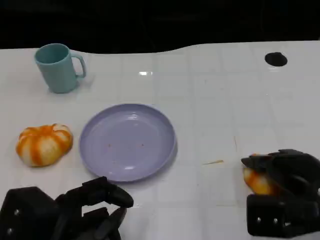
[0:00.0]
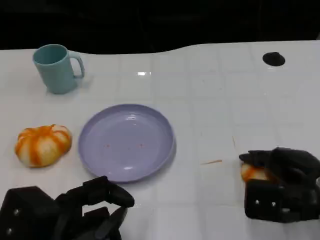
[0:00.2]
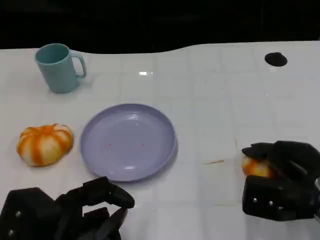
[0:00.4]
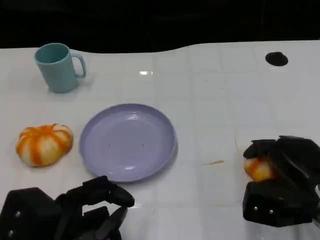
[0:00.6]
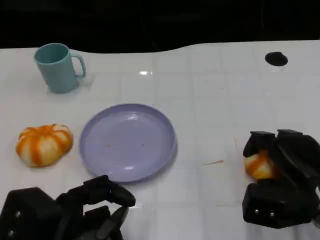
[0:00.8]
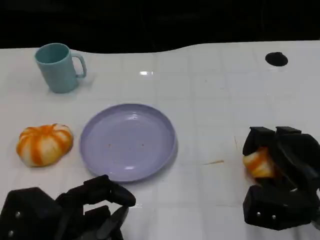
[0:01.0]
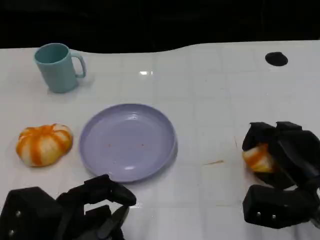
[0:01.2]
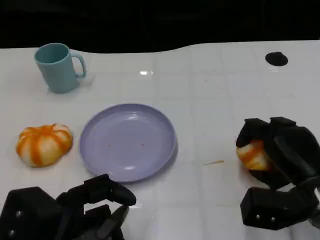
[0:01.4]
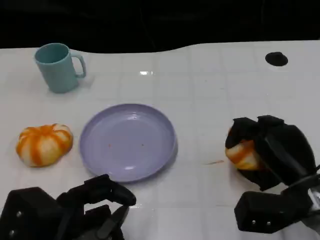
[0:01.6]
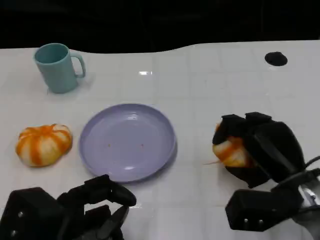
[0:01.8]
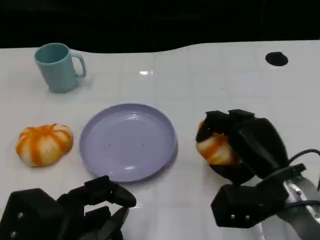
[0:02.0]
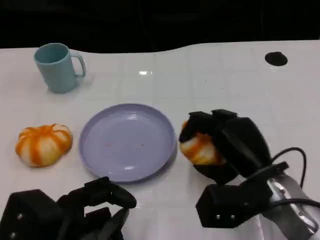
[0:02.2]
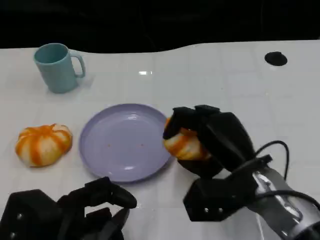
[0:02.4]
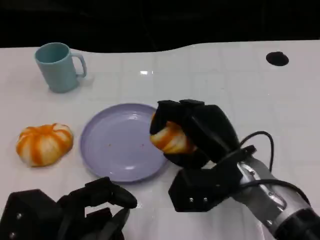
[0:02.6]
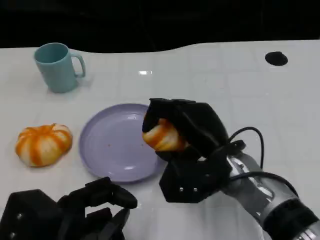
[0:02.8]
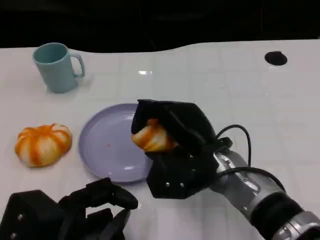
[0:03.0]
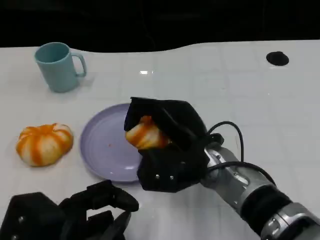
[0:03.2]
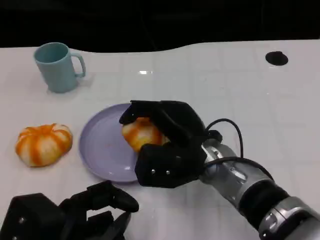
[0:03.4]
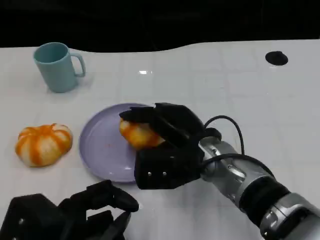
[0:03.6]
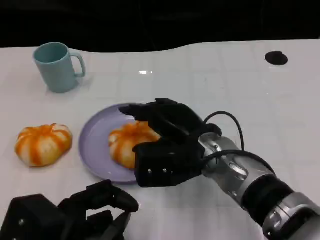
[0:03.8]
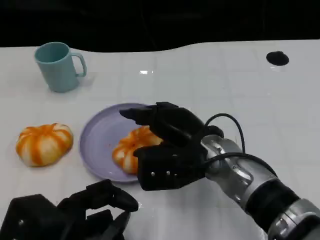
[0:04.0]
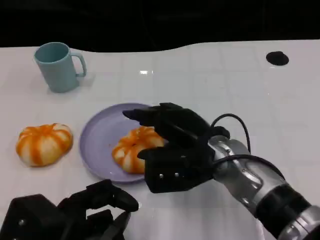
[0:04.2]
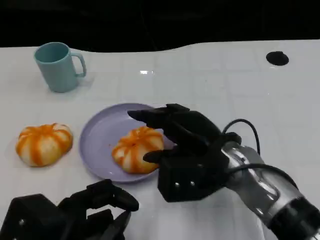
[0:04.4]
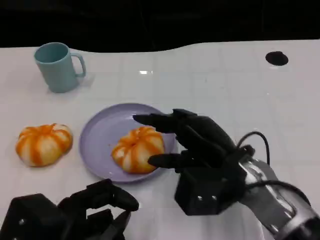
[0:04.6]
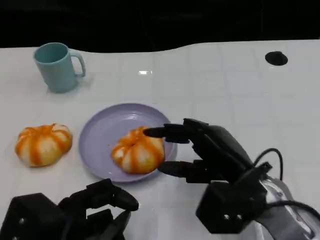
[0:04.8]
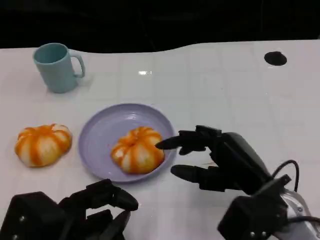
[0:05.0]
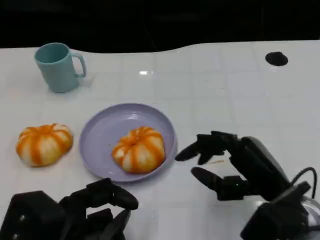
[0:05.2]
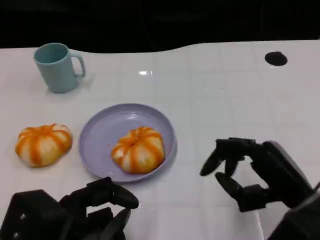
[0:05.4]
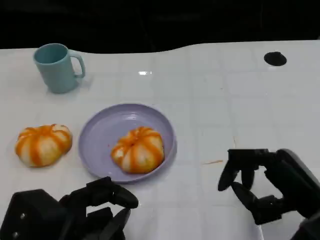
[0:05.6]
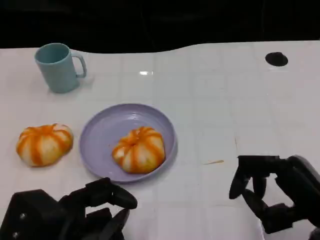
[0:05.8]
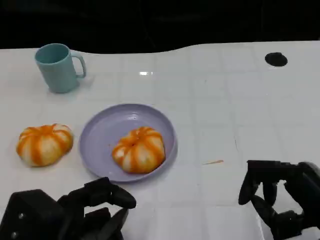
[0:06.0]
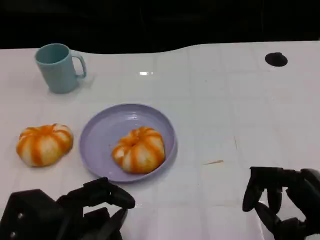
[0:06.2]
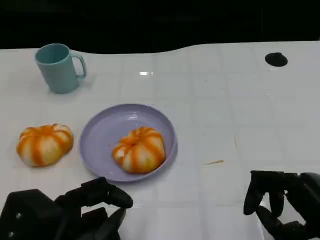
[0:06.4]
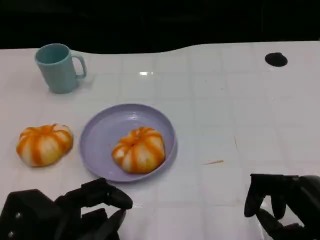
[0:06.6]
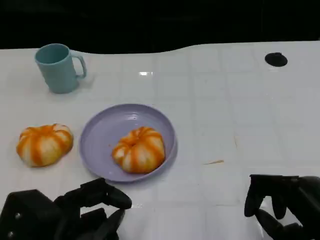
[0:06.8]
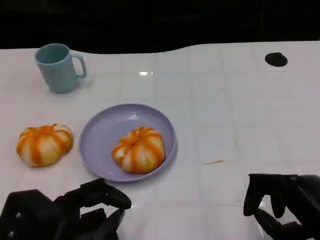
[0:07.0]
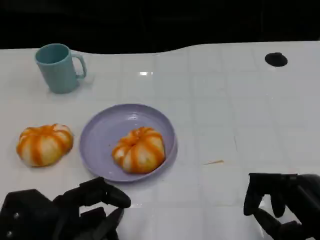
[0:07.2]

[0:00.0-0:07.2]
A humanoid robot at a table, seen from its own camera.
Task of the whole recording: Grasp the bread from the table and place it into the plate.
0:01.4 to 0:02.8: The right hand is displaced to the left by roughly 15 cm.
0:04.4 to 0:05.8: The right hand is displaced to the right and backward by about 15 cm.
0:05.8 to 0:07.2: The hands move only a little.

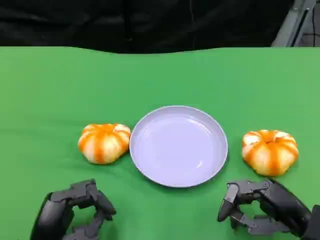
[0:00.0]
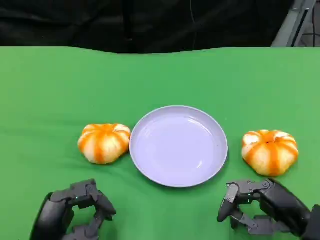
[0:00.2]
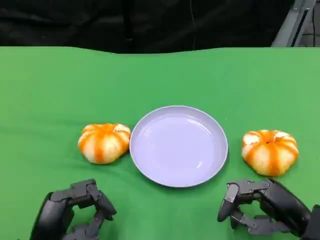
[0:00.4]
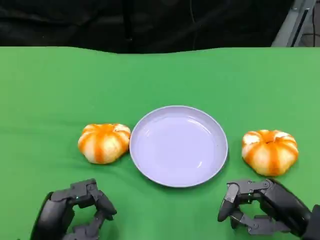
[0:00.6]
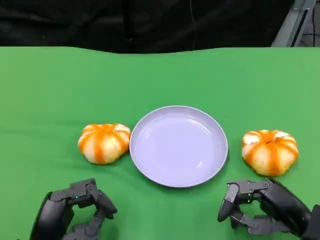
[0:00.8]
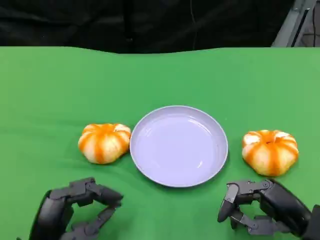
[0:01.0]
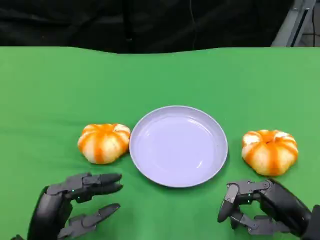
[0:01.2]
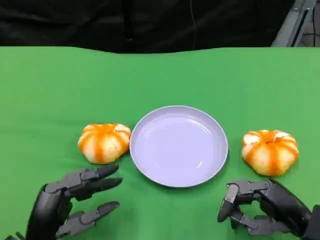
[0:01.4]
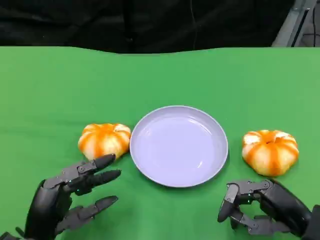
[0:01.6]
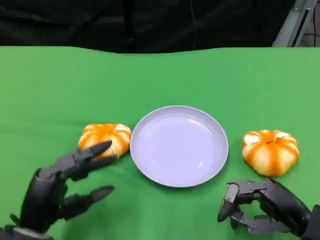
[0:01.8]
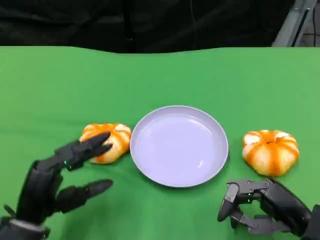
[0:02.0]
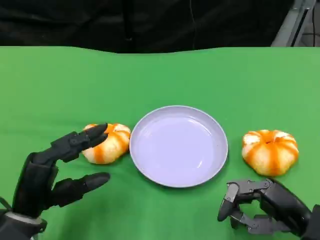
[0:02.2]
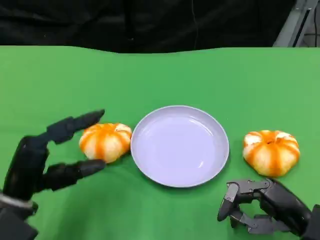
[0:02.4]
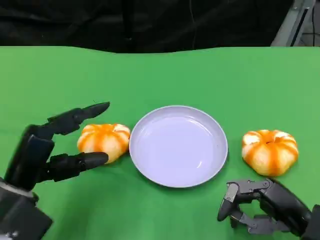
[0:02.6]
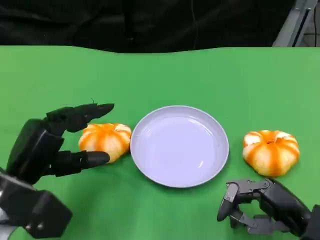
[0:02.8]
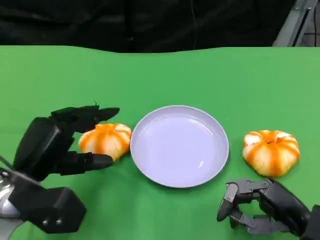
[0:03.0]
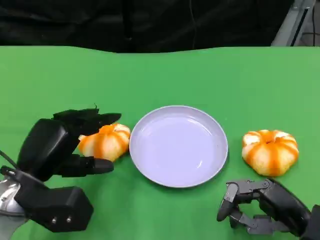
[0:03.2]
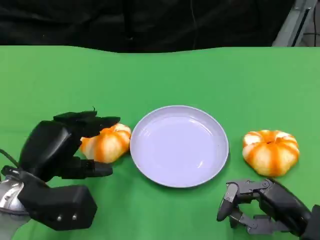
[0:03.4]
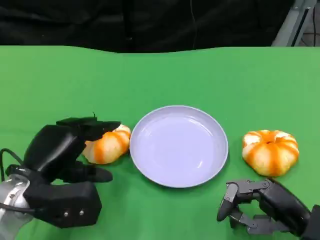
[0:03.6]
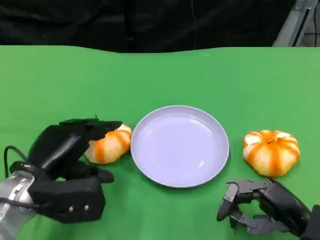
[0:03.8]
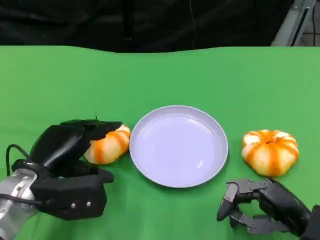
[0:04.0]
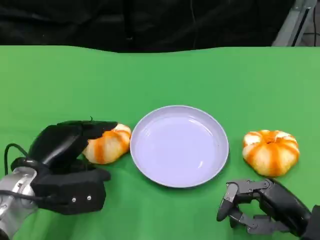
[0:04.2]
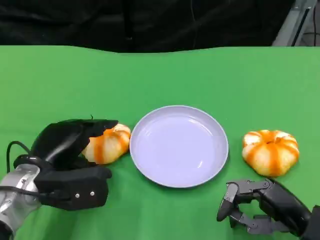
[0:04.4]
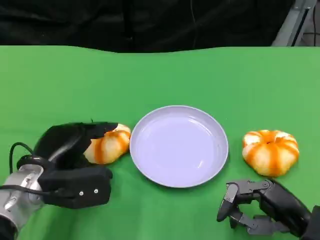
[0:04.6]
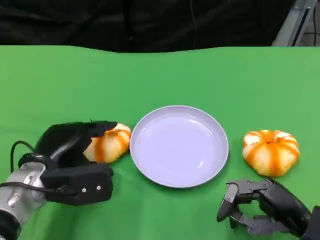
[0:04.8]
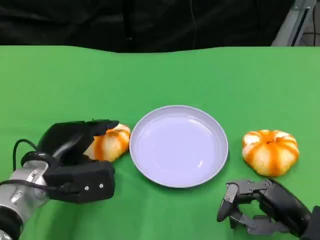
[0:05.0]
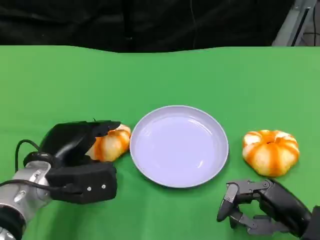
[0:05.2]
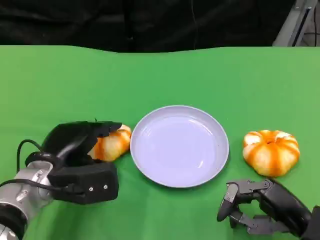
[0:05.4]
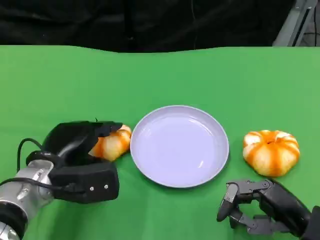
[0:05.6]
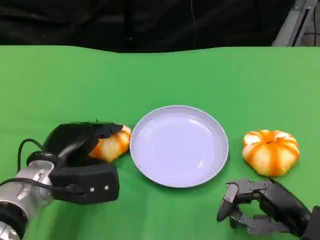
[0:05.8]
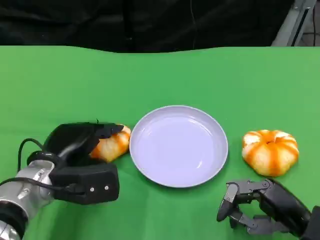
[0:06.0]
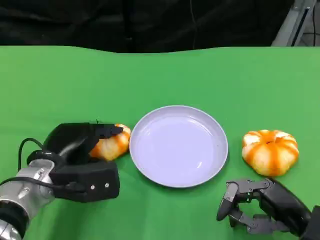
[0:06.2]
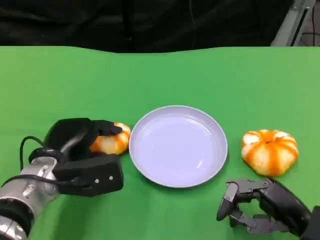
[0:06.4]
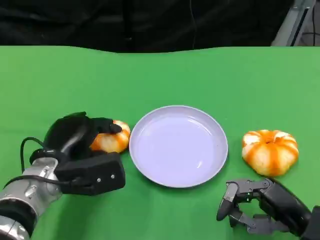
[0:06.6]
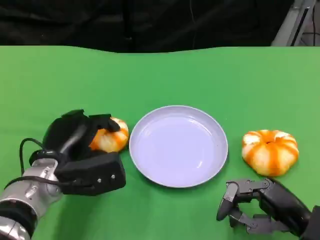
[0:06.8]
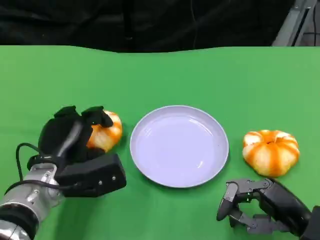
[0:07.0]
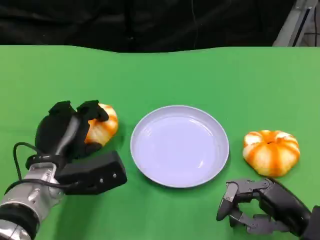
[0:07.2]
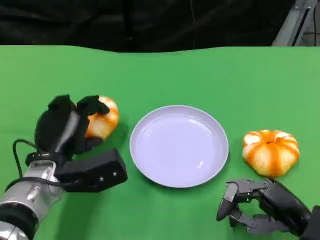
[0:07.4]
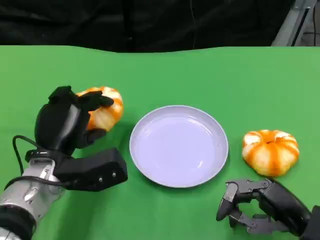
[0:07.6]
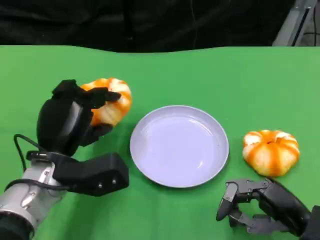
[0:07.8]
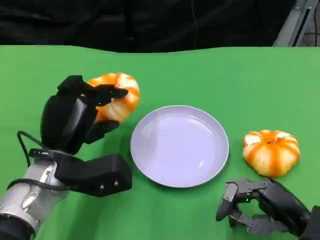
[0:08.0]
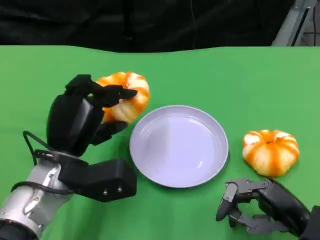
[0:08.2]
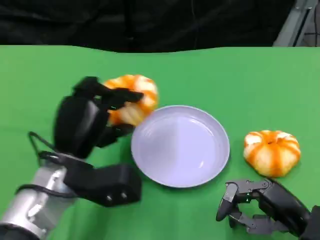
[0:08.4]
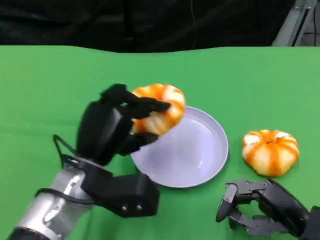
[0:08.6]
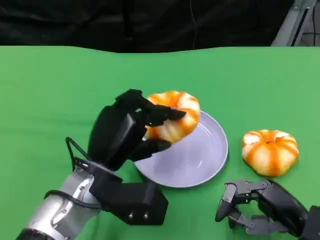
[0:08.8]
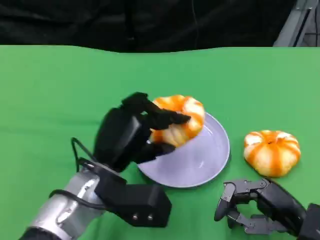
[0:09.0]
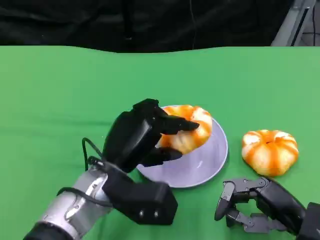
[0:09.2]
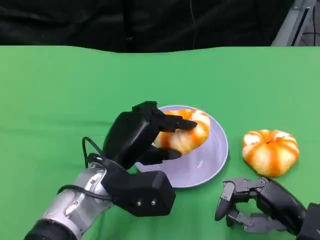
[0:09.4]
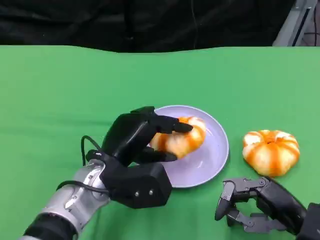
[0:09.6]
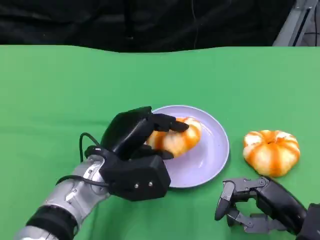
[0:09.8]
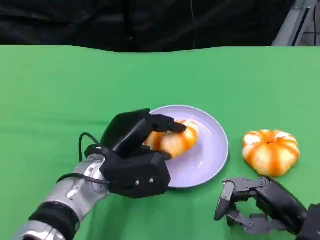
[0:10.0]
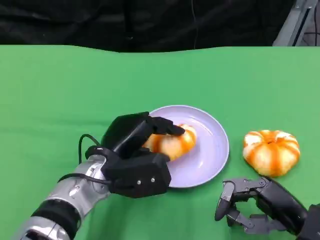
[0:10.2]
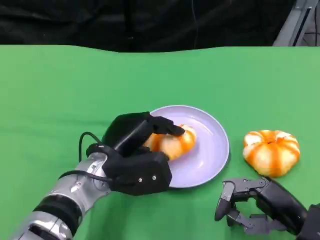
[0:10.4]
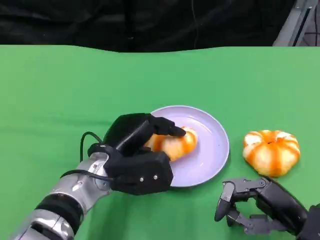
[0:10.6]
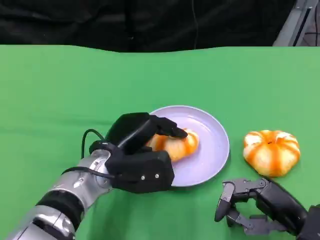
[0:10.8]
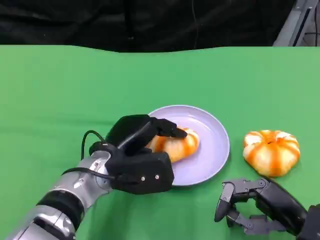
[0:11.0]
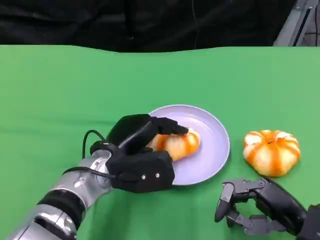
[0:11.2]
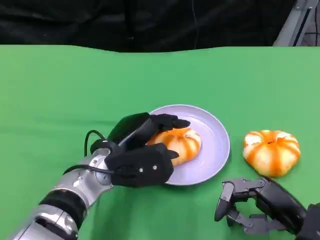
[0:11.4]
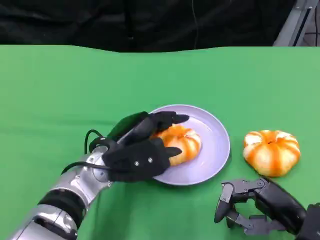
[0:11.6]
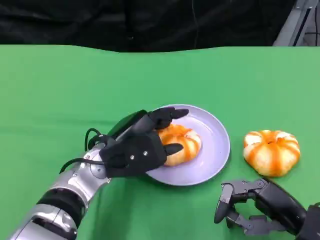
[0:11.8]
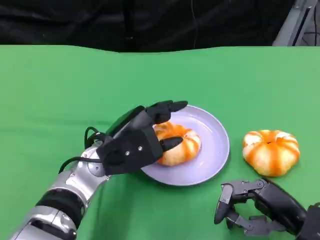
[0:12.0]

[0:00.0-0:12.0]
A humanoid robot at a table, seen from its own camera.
Task of the whole recording: Grasp the bread from the table and place it into the plate.
0:00.0 to 0:01.6: The hands stay close to where they were, moving slightly.
0:01.6 to 0:03.0: The left hand heads forward and upward, covering some 10 cm.
0:04.4 to 0:06.0: The hands stay close to where they were, moving slightly.
0:07.6 to 0:09.0: The left hand is displaced to the right by some 5 cm.
0:10.4 to 0:12.0: The hands move only a little.

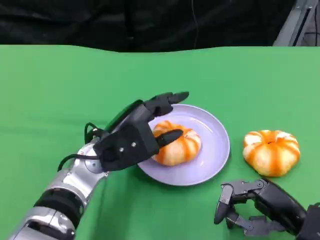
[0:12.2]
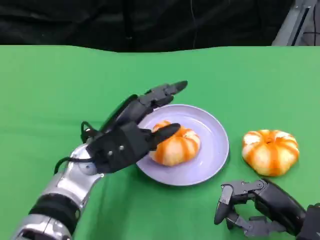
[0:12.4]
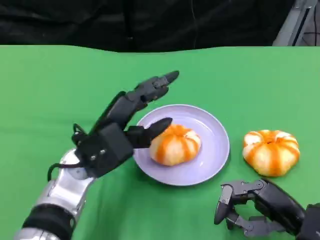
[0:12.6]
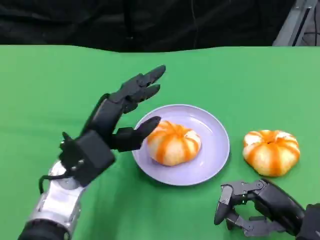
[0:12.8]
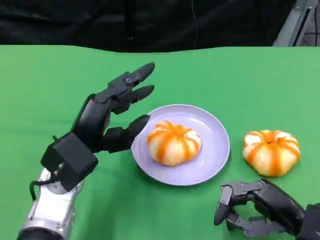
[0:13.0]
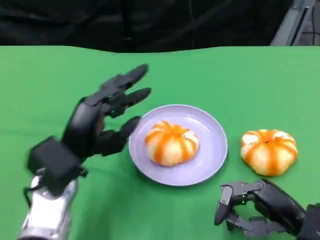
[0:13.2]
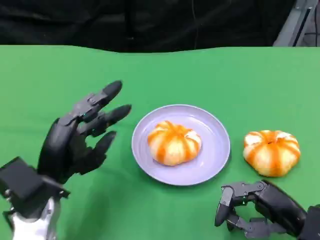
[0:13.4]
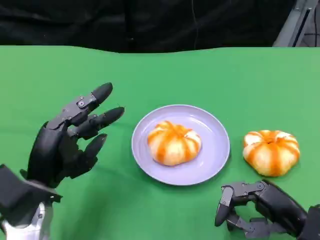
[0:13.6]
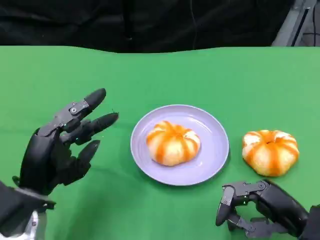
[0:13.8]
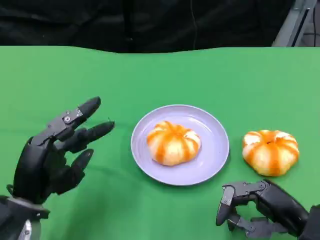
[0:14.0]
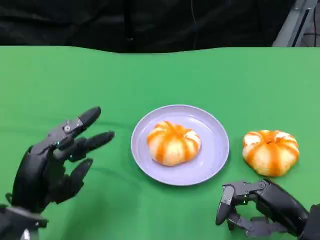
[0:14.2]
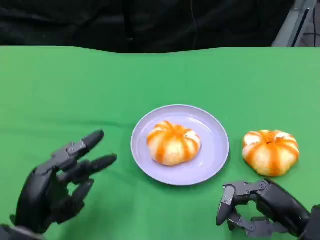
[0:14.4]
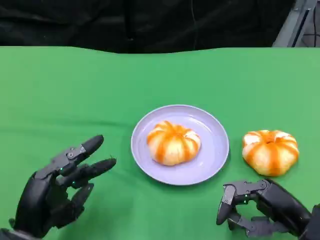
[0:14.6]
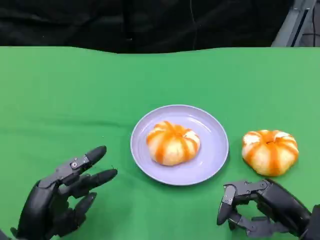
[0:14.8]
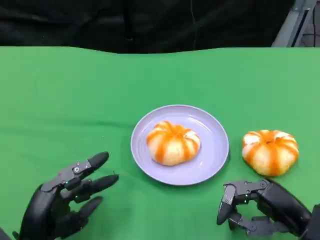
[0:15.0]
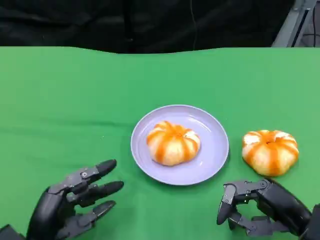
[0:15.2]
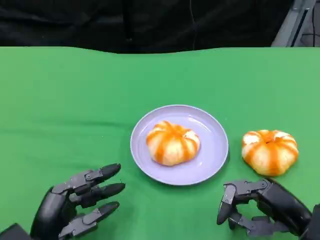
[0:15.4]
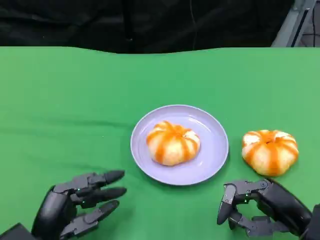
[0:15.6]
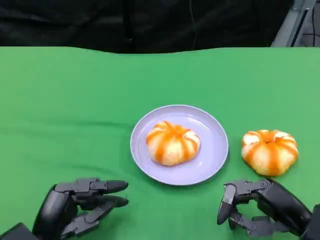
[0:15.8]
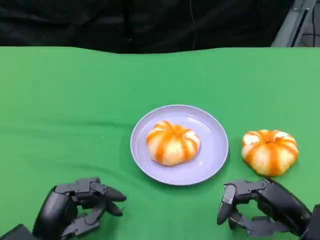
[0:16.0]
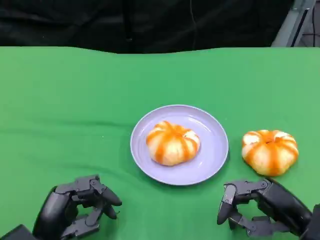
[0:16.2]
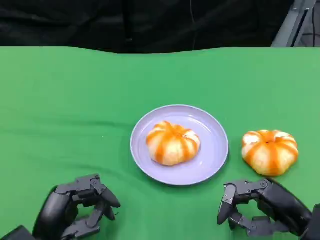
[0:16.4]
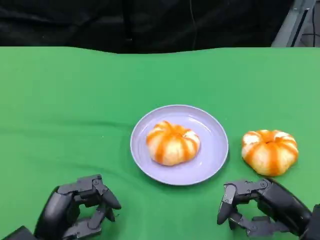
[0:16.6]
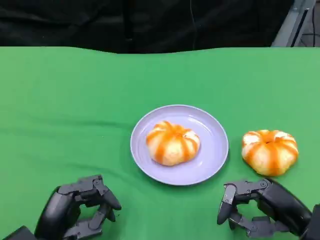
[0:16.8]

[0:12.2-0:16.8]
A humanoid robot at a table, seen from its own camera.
Task of the whole recording: Grasp the bread from the table and place it into the plate.
0:12.2 to 0:13.8: The left hand heads to the left and backward, covering roughly 10 cm.
0:13.8 to 0:15.2: The left hand shifts some 5 cm downward.
0:15.2 to 0:16.8: Neither hand changes place.
